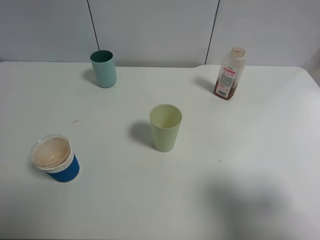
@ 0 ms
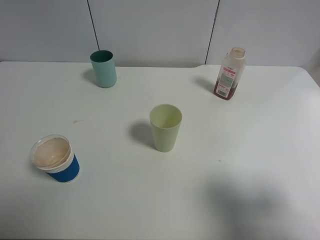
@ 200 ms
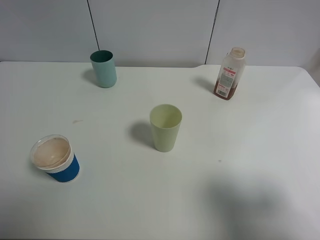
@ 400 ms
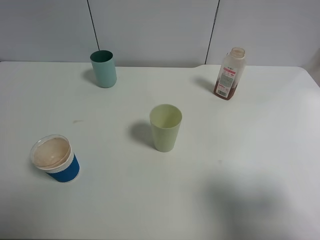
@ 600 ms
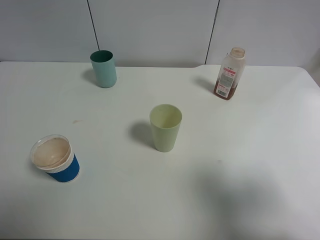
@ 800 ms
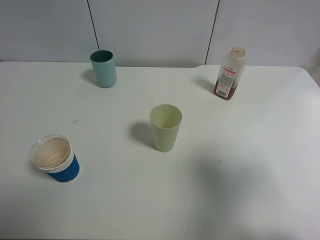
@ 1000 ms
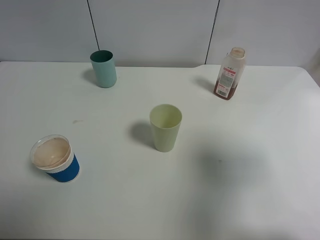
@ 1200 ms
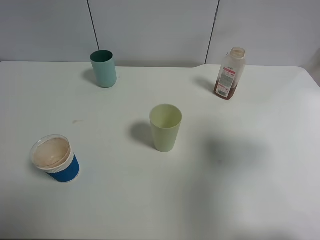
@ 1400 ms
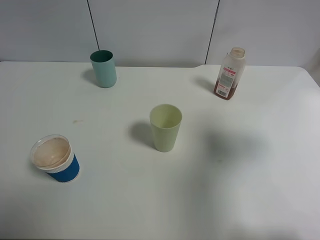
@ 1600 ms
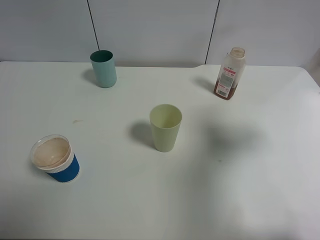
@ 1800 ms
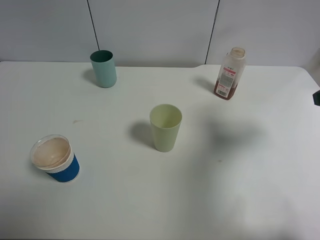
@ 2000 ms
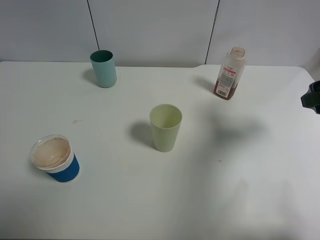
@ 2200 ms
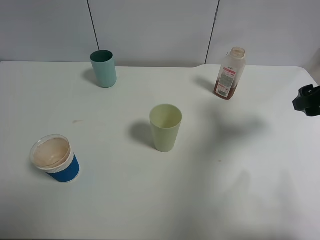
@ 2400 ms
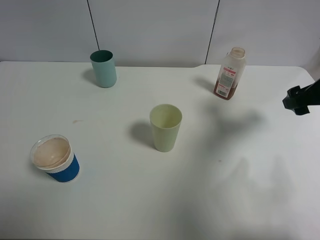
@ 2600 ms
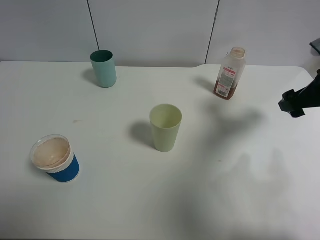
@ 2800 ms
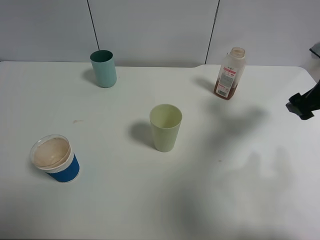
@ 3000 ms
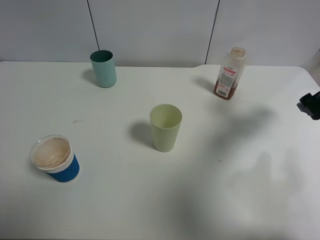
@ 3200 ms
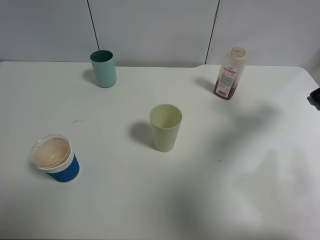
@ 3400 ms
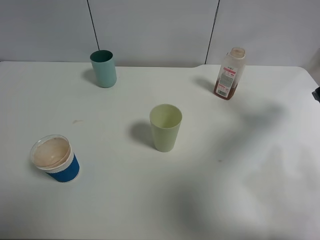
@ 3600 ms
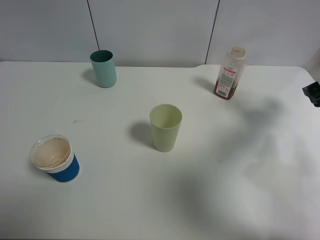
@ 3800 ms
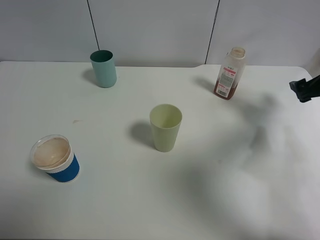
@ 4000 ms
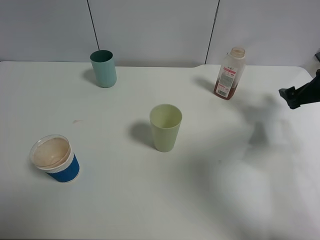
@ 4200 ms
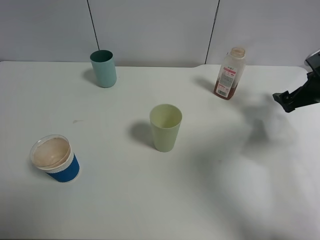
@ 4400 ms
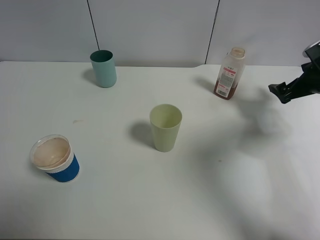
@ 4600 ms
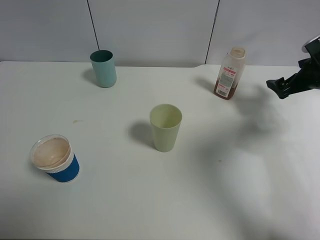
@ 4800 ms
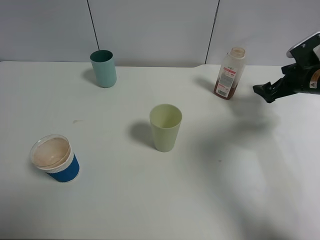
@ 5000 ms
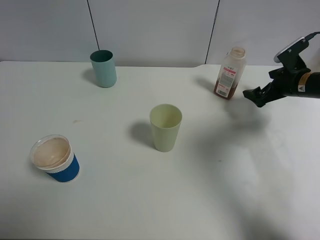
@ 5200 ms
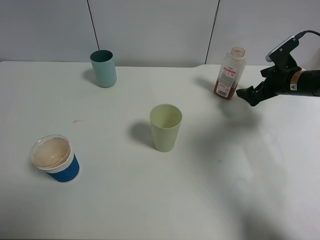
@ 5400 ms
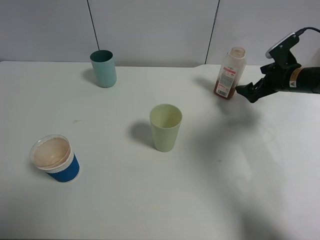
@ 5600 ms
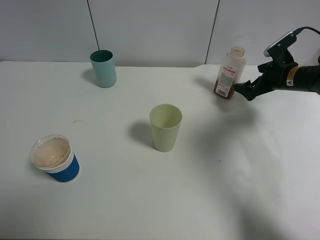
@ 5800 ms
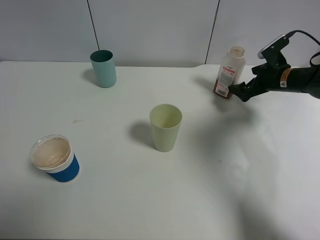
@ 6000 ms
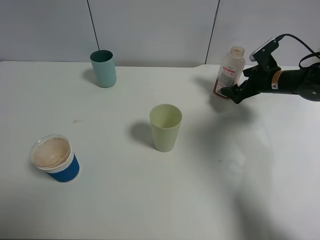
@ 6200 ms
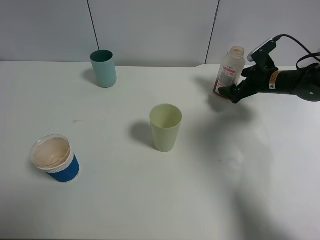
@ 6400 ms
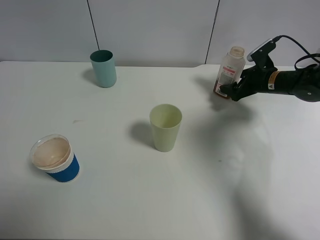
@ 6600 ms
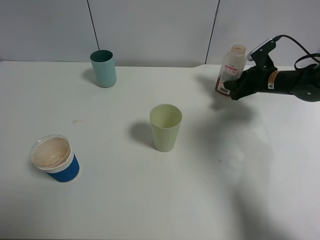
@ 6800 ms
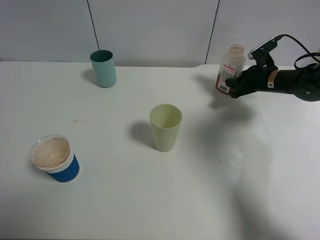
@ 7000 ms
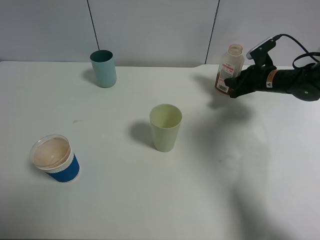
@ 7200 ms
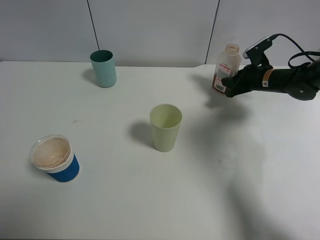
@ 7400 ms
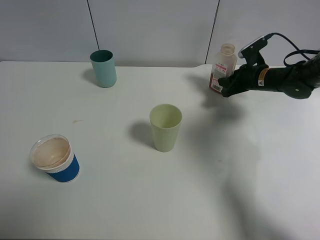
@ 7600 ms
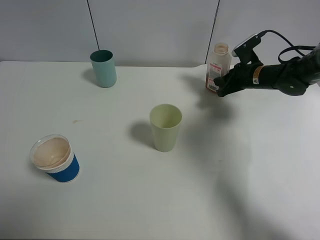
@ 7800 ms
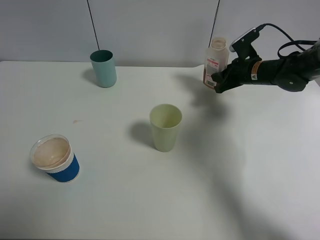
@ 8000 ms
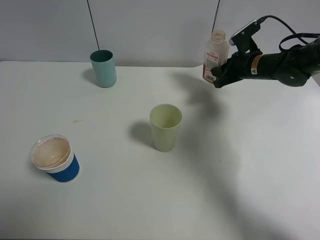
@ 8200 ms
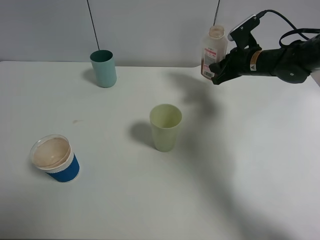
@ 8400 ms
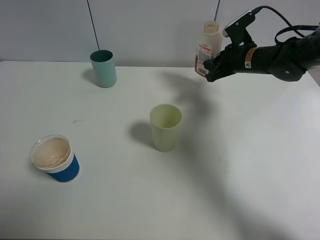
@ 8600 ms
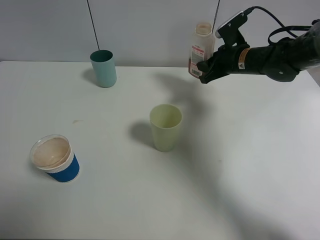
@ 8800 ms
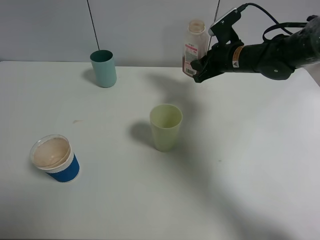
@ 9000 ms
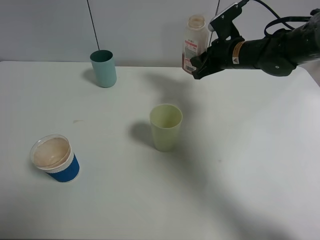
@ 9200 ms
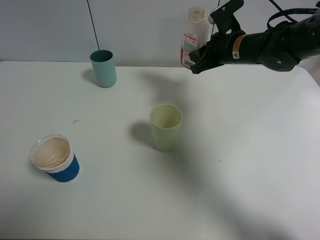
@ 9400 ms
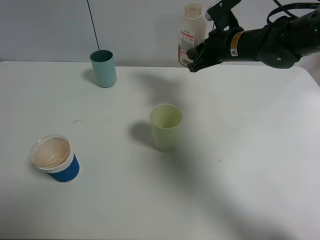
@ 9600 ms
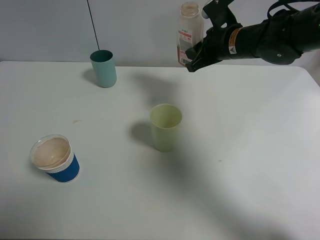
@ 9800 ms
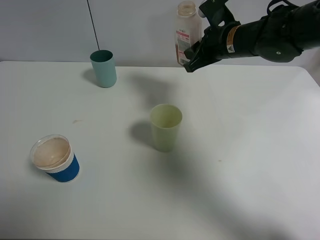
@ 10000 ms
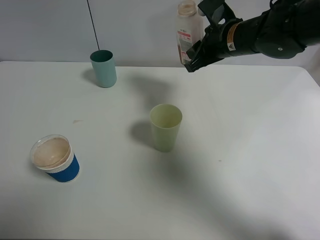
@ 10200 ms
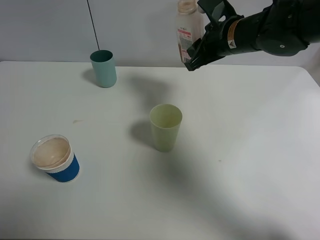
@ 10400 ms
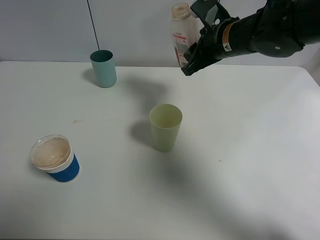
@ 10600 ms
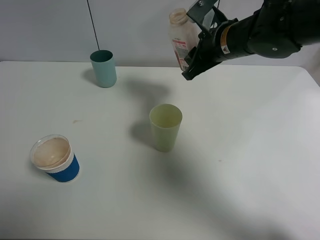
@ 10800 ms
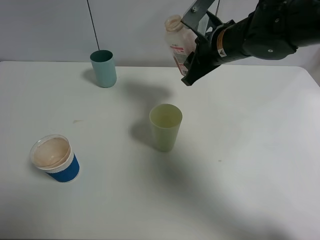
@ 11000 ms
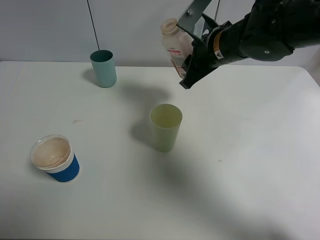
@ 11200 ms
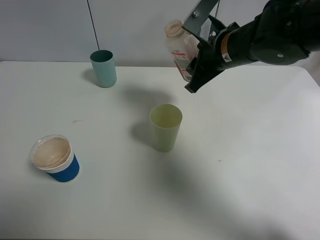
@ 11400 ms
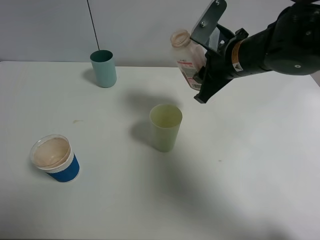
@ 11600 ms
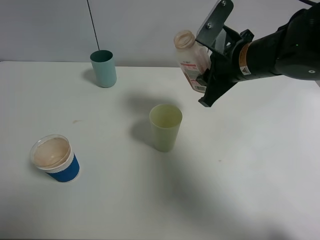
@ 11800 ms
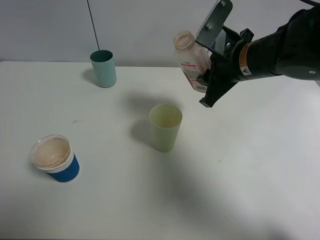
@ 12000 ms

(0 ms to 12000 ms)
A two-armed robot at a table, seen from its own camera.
Task of the whole recording: use a clamp to hold the bottle of the drink, pour the beverage into a random cup, then clamp the cup containing the drink and pour the drink into another random cup.
Step, 0 ms - 9000 ms: Pick up the drink bottle with right gripper.
0 ms - 1600 ms: The right gripper travels forward by roughly 15 cm.
1600 ms - 3000 ms: The right gripper heads forward and downward, covering about 15 cm.
3000 ms - 4400 ms: The right gripper travels downward, forward and to the right by about 10 cm.
4400 ms - 6000 ms: The right gripper travels forward and to the left by approximately 10 cm.
6000 ms - 7600 ms: The right gripper closes up.
7600 ms - 9000 ms: The right gripper goes roughly 10 cm to the left and upward.
9000 ms - 10400 ms: The right gripper heads upward, covering approximately 5 cm.
10400 ms - 12000 ms: The right gripper shifts about 5 cm backward.

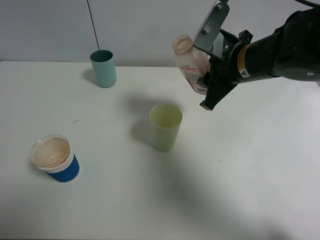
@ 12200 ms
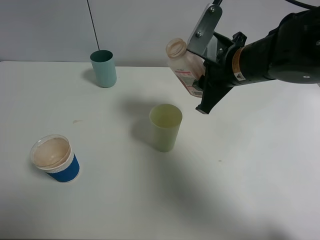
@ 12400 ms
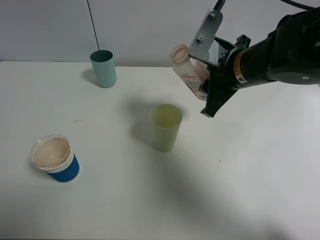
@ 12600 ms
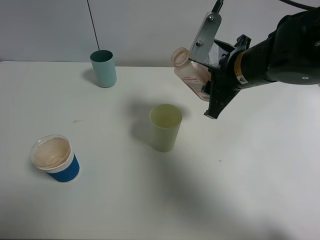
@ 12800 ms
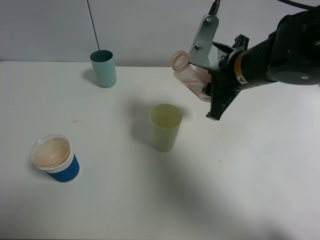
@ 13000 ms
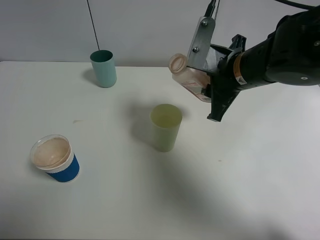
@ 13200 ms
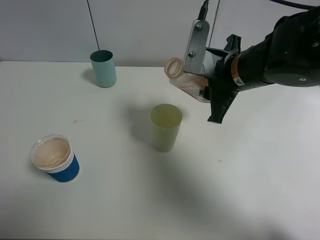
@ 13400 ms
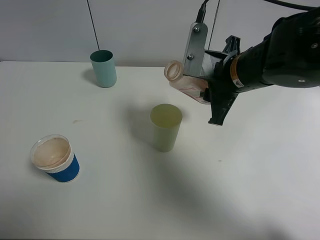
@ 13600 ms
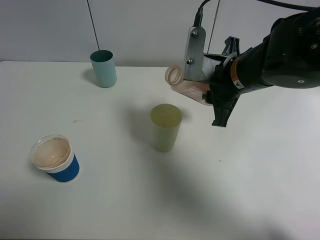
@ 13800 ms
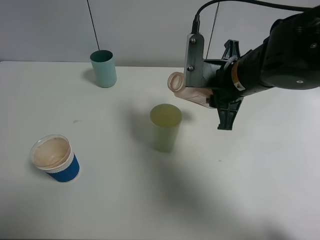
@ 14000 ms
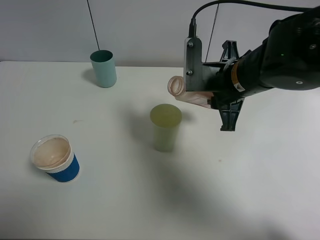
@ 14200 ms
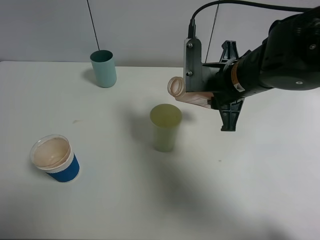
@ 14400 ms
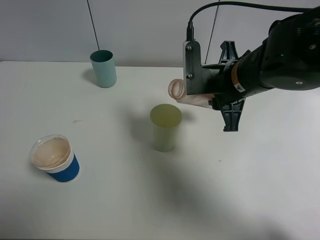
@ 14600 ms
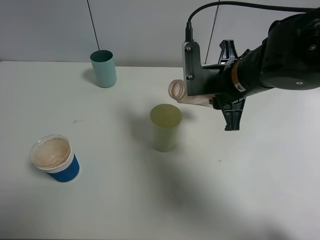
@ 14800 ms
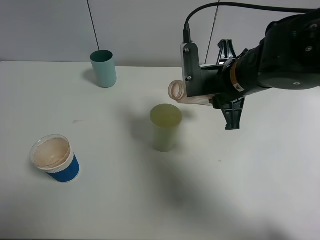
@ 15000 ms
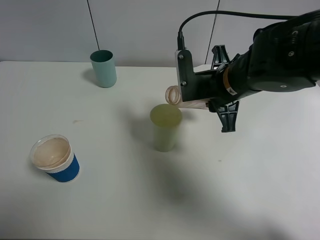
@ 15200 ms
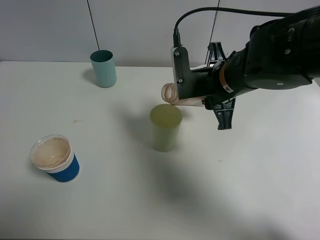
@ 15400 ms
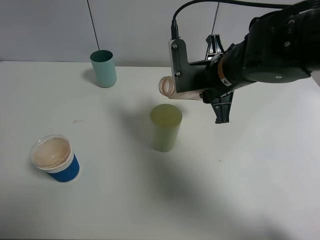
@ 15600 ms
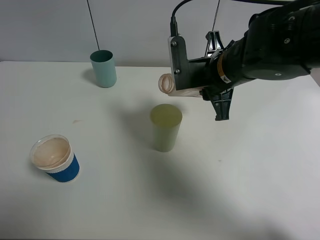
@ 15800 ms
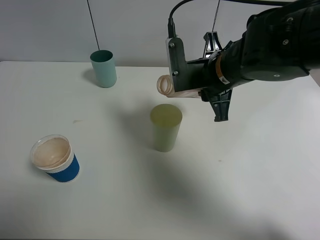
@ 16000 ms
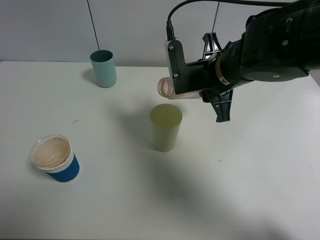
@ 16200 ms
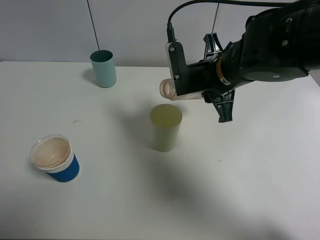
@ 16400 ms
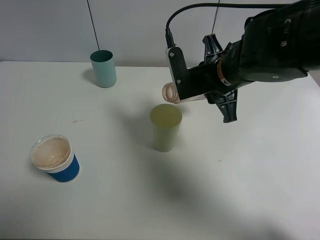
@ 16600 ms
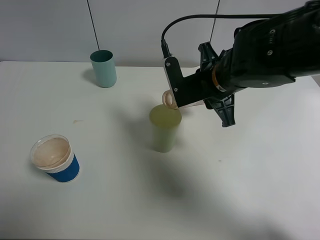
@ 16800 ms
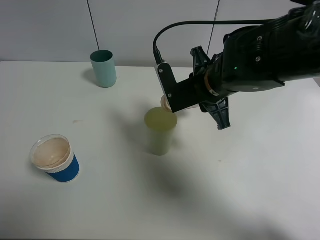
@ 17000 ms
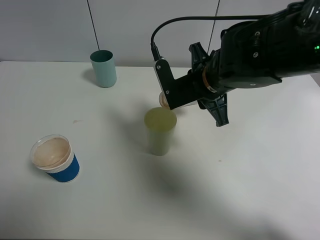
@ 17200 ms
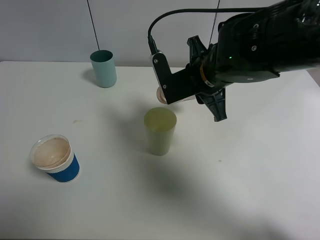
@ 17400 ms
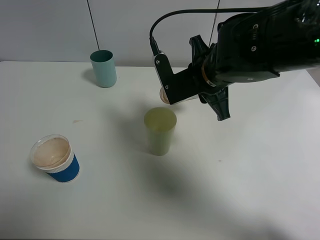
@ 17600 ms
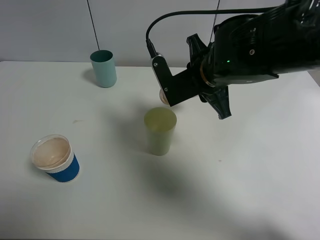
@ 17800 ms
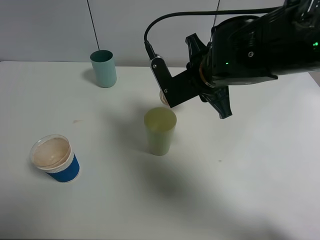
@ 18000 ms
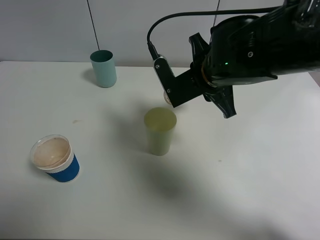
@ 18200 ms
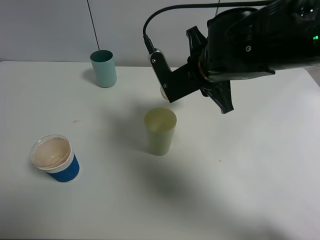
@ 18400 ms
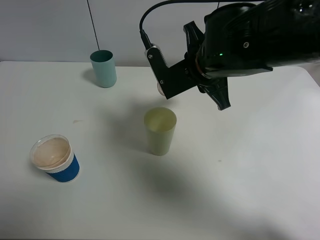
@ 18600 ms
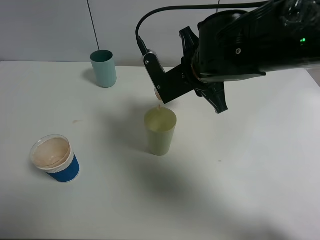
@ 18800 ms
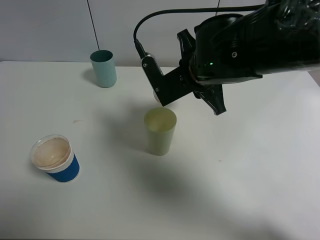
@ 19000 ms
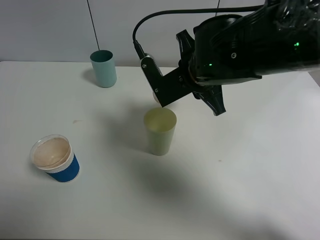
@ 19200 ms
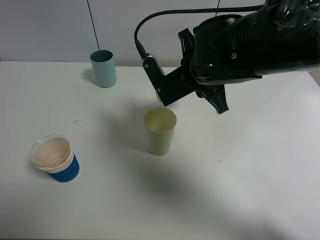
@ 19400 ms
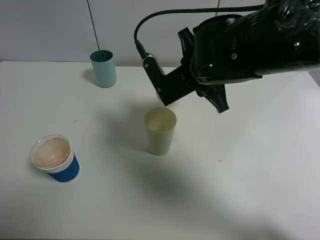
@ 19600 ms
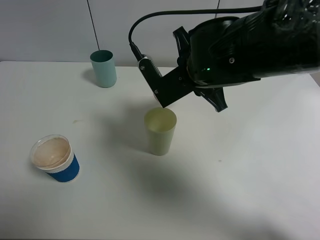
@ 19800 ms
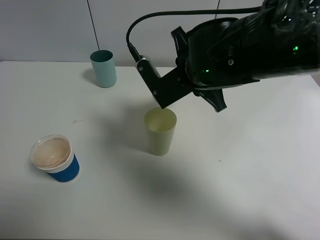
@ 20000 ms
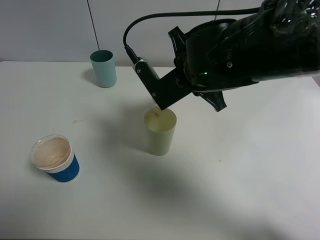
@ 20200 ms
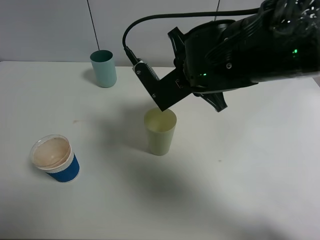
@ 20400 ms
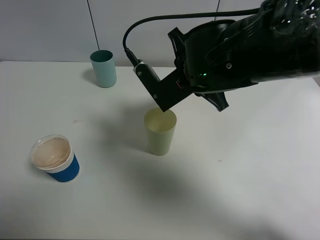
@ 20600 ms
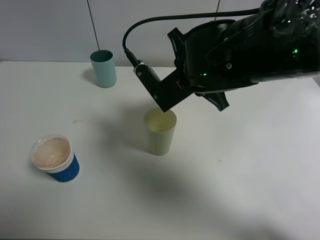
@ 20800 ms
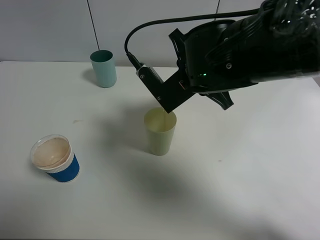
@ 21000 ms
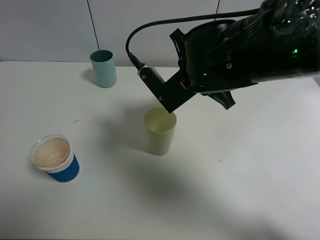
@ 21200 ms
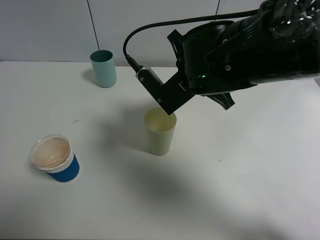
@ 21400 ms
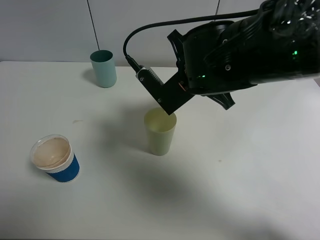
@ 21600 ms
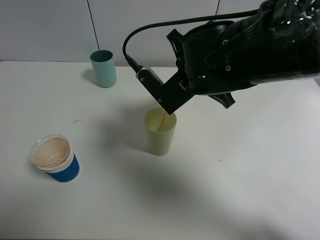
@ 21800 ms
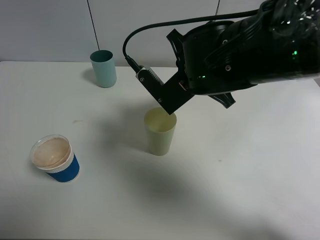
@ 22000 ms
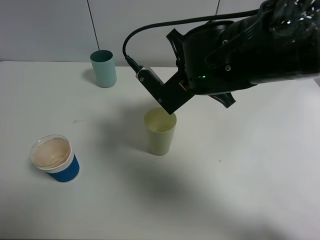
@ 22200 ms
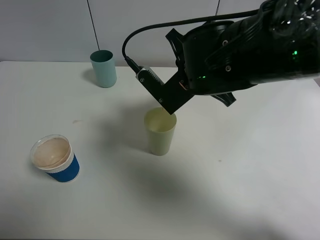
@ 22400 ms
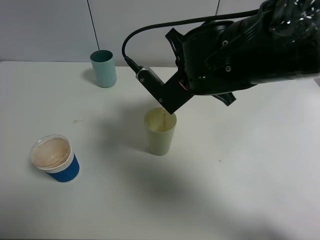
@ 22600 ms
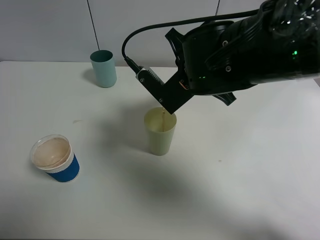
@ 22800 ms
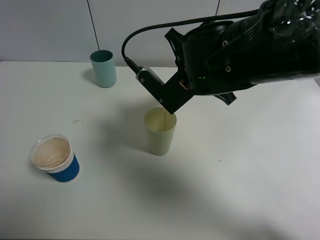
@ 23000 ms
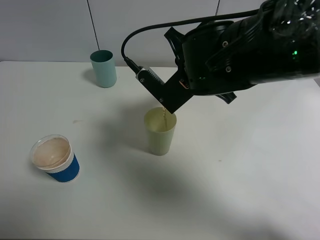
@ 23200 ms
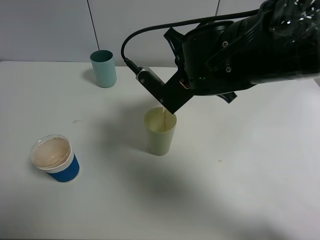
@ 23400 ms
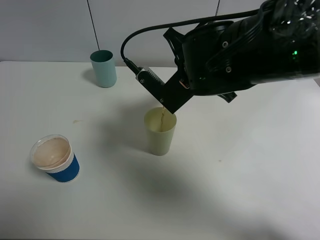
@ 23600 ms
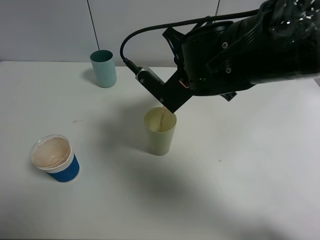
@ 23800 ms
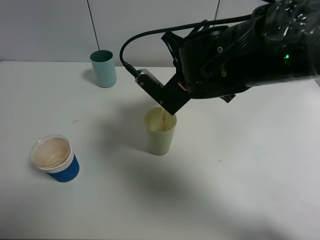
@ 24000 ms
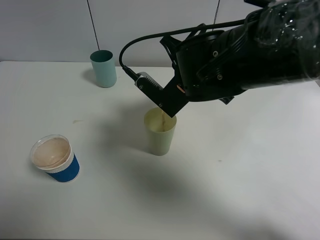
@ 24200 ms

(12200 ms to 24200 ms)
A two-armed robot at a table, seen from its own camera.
Task of the whole recording: use a clamp to hold the bottle of the drink, pour the beverage into a random cup, then clamp the cup containing the drink and pour the drink into another random cup.
13800 ms - 15200 ms: The grippers make only small movements.
15200 ms - 16600 ms: The grippers make only small movements.
16600 ms - 18200 ms: The grippers move only a little.
18200 ms - 21200 ms: The grippers stay close to where they were, moving slightly.
21200 ms - 22600 ms: Both grippers stay put.
22600 ms - 24200 ms: Neither gripper changes place.
